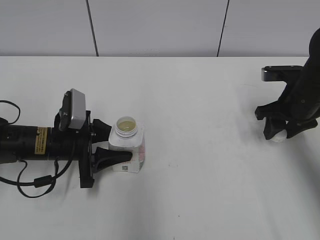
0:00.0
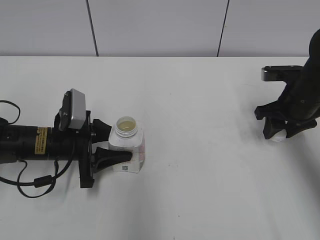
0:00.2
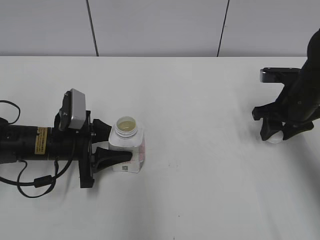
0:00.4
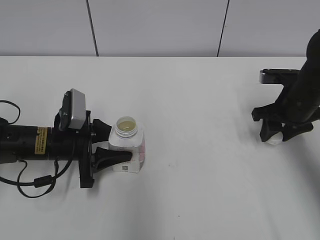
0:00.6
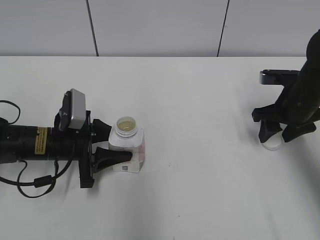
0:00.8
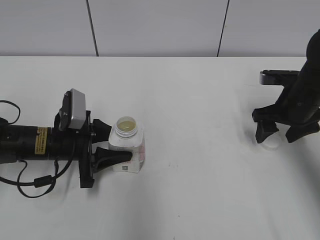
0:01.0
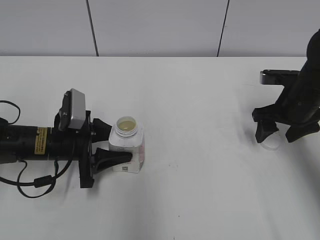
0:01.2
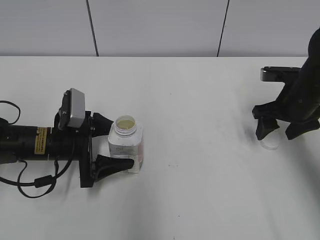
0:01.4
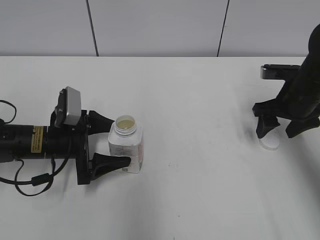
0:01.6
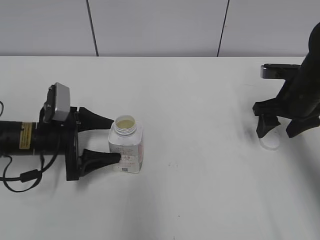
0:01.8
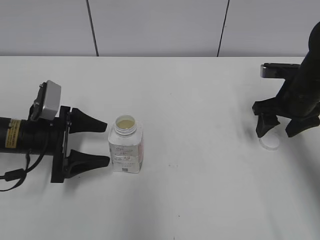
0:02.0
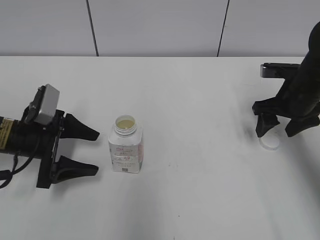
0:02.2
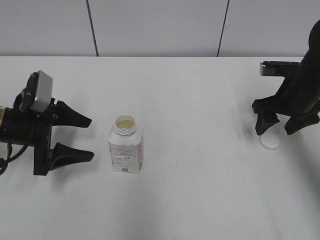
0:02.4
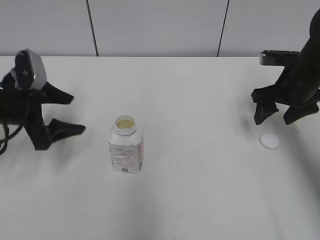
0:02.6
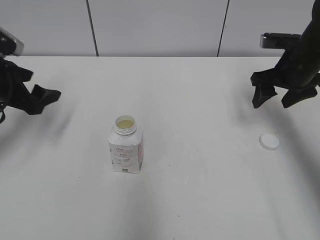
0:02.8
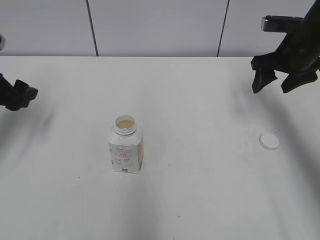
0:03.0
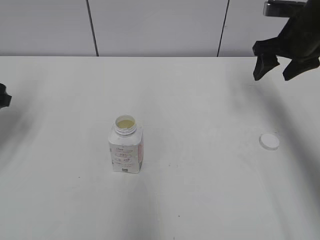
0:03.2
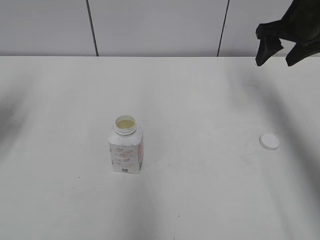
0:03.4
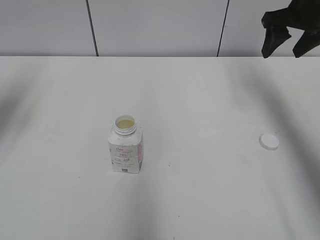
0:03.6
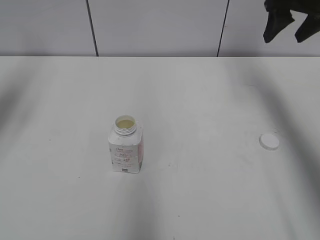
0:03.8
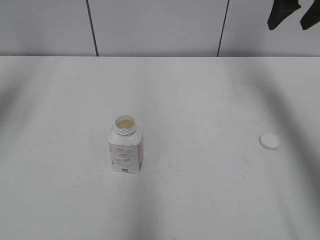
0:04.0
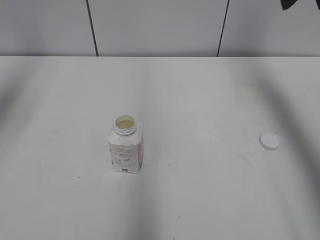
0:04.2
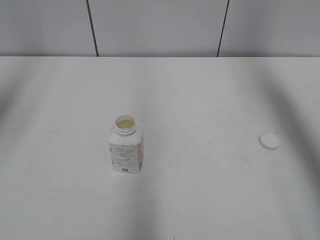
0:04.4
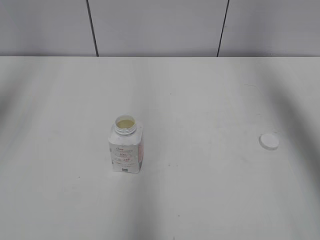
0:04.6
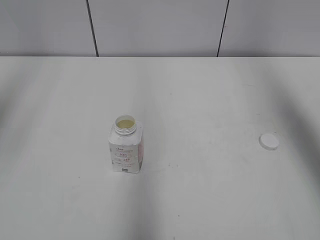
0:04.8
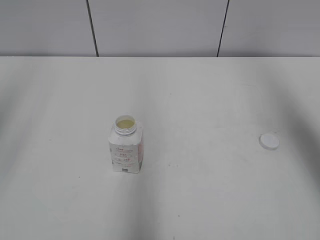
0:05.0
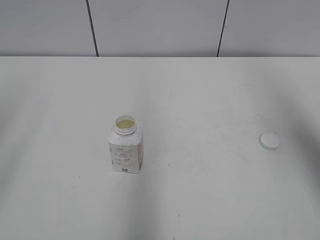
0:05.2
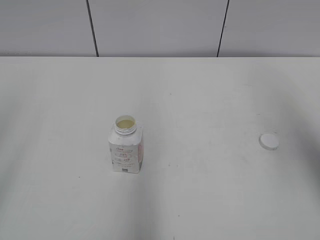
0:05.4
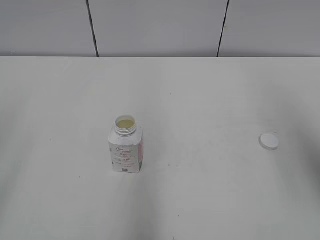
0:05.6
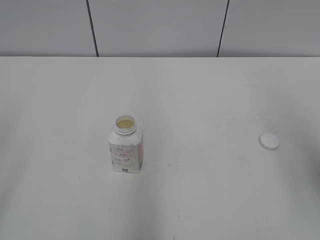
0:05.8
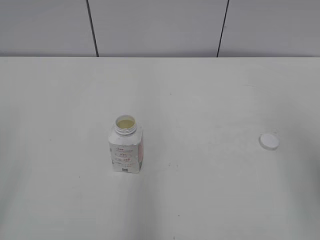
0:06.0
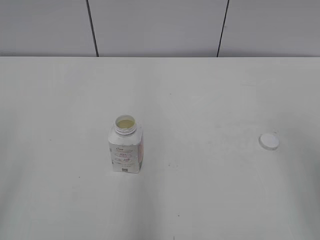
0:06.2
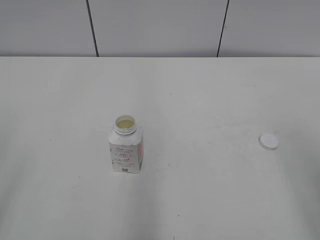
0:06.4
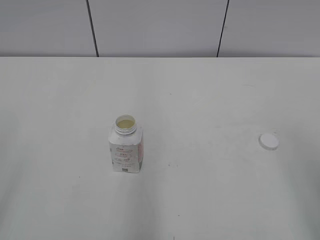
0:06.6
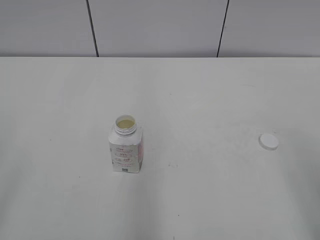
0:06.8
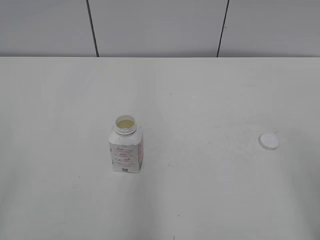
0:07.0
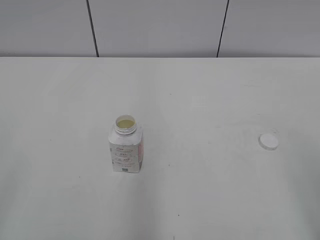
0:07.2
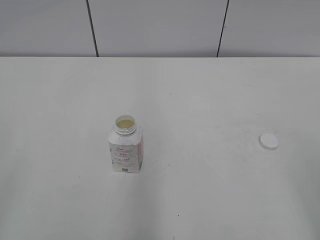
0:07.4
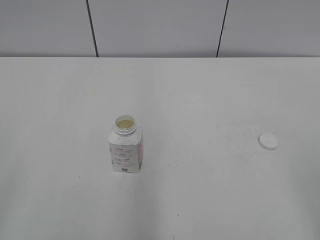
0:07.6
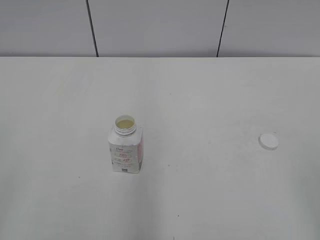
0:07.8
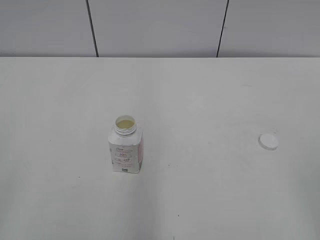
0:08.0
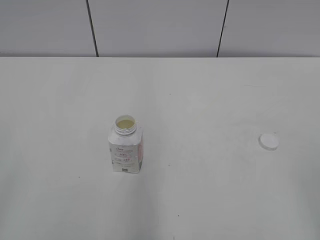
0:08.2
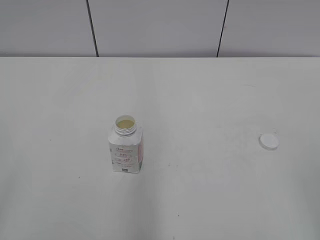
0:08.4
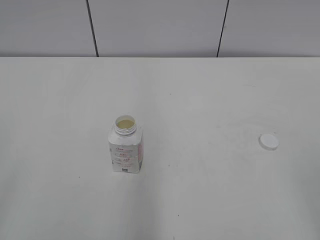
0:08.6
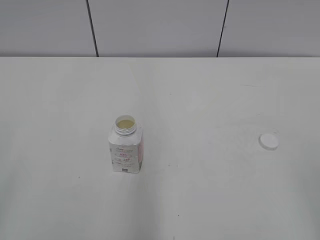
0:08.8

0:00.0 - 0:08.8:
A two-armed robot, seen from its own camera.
Step, 0:01.0 - 0:01.6: Place the bottle on the table with the left gripper.
0:00.0 - 0:01.4: The left gripper opens its fingers; the right gripper opens up.
0:01.4 - 0:03.0: The left gripper travels to the left and upward by approximately 15 cm. The right gripper goes roughly 5 cm upward.
0:03.0 - 0:04.4: The two grippers go approximately 20 cm upward.
0:04.4 - 0:05.8: Both grippers travel together backward, about 25 cm.

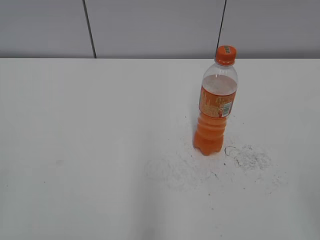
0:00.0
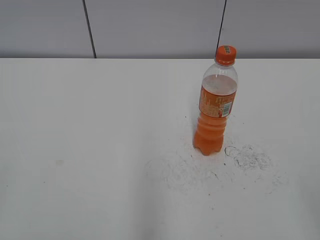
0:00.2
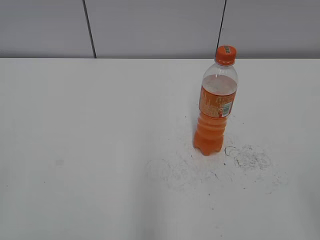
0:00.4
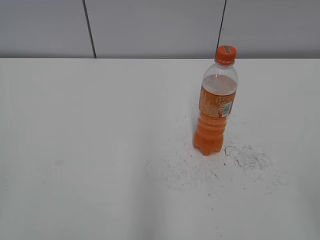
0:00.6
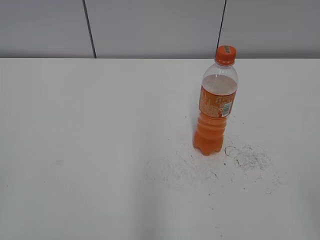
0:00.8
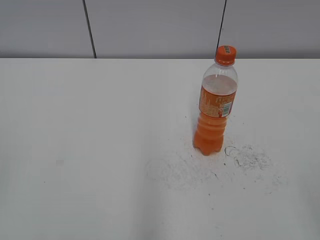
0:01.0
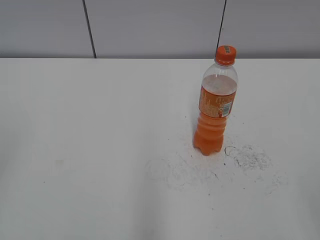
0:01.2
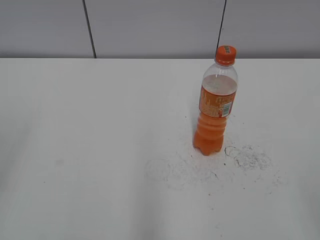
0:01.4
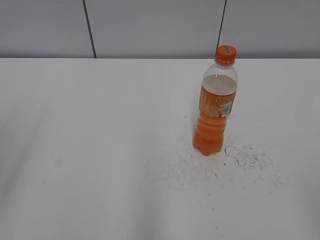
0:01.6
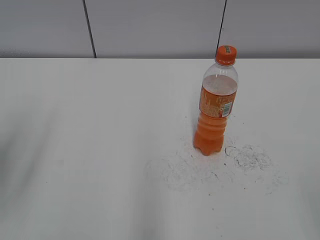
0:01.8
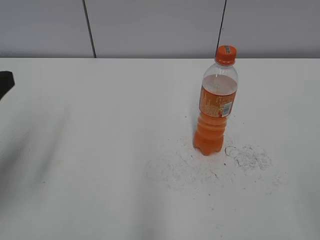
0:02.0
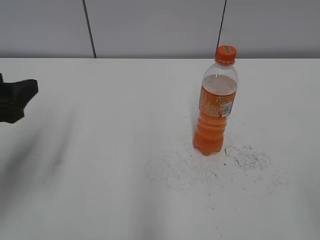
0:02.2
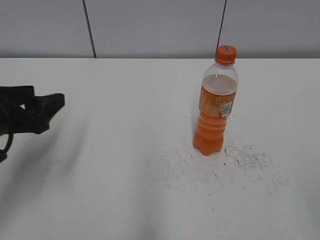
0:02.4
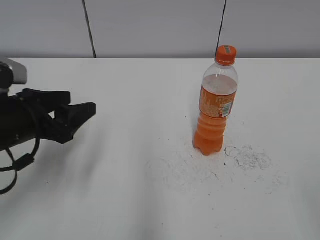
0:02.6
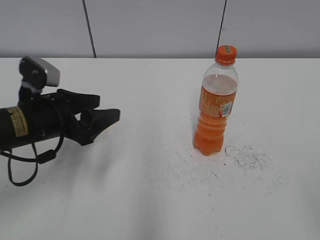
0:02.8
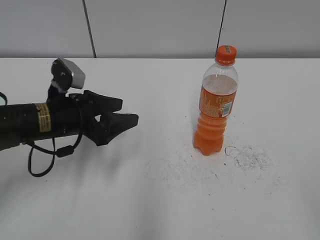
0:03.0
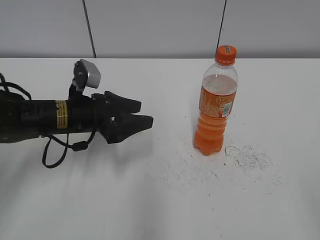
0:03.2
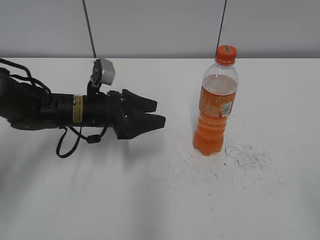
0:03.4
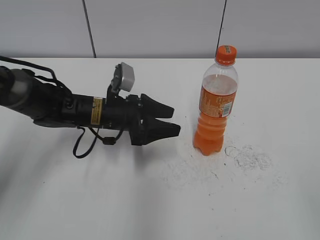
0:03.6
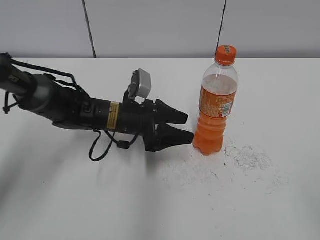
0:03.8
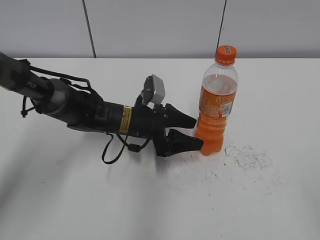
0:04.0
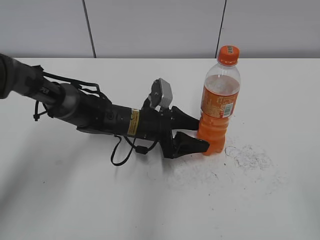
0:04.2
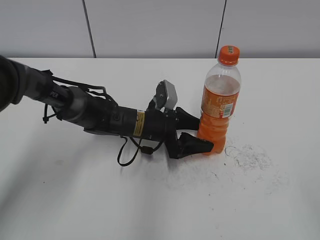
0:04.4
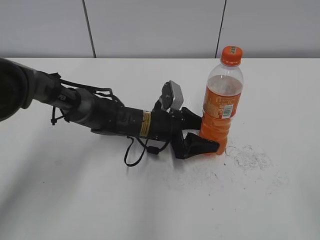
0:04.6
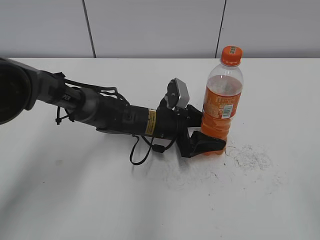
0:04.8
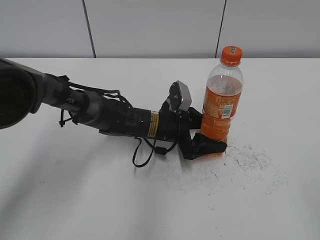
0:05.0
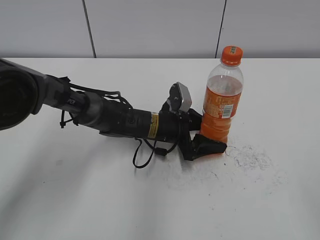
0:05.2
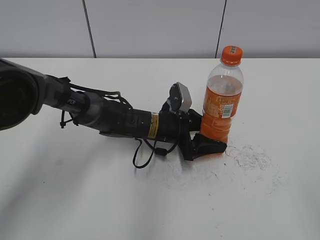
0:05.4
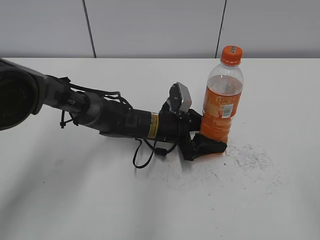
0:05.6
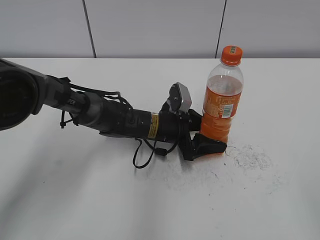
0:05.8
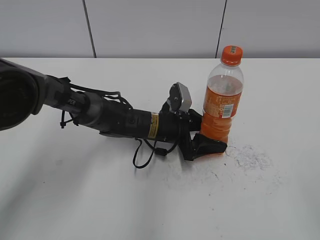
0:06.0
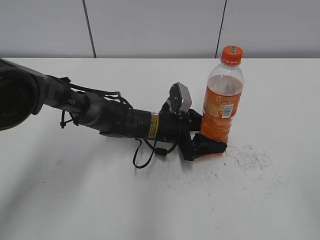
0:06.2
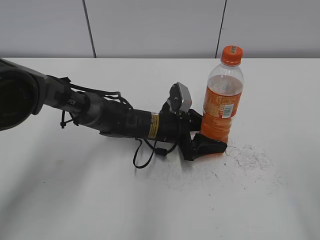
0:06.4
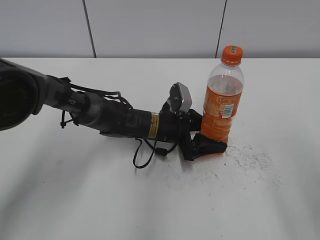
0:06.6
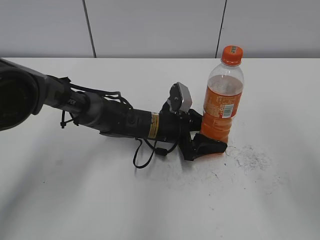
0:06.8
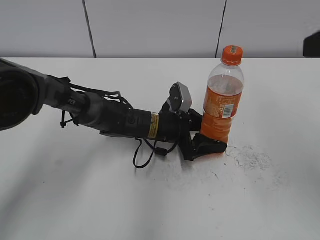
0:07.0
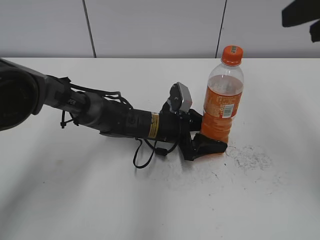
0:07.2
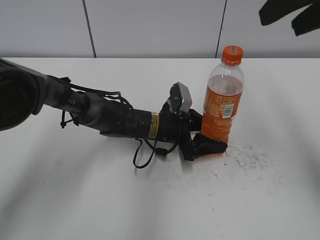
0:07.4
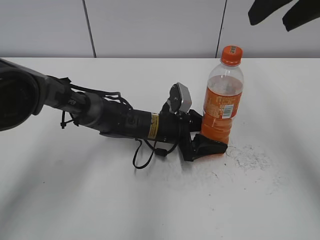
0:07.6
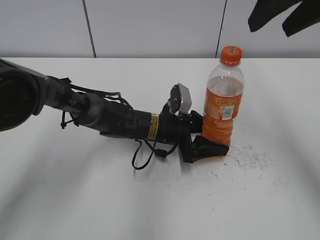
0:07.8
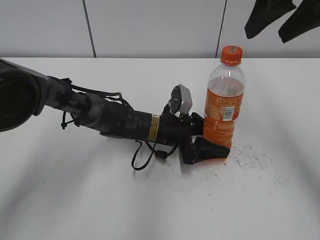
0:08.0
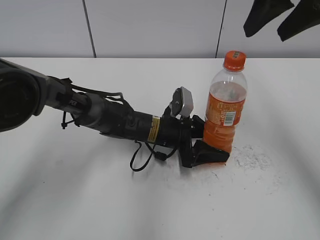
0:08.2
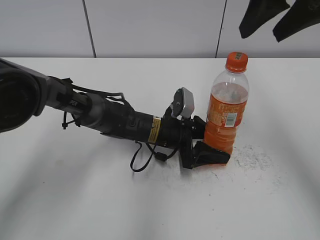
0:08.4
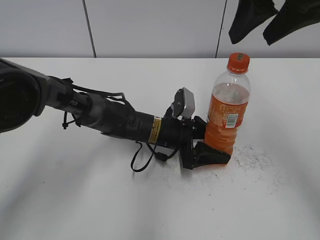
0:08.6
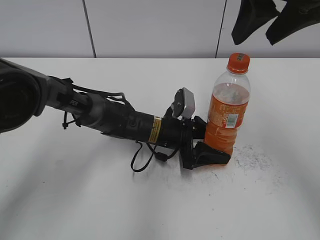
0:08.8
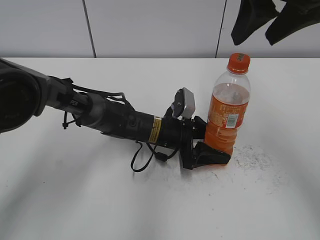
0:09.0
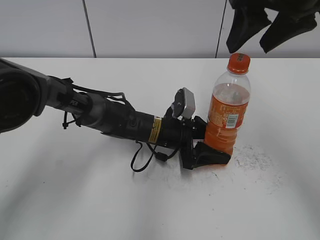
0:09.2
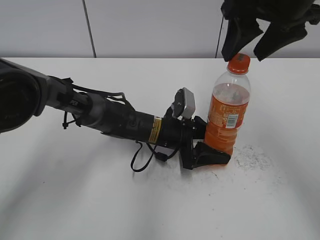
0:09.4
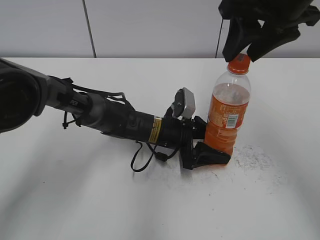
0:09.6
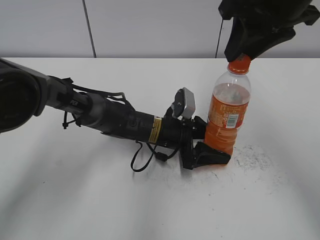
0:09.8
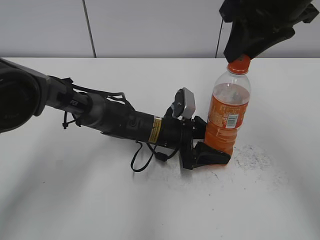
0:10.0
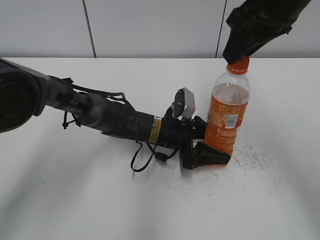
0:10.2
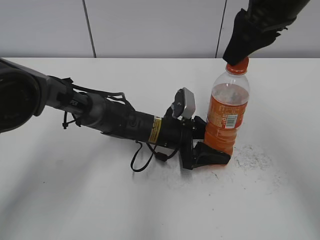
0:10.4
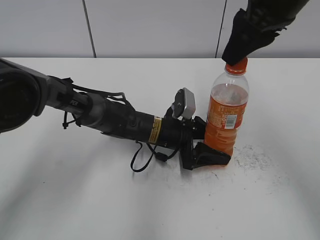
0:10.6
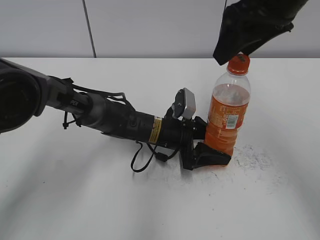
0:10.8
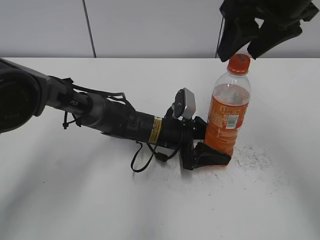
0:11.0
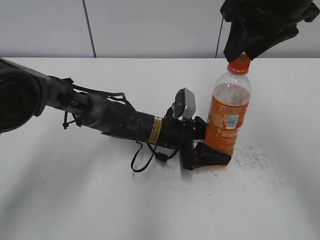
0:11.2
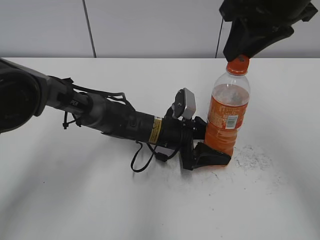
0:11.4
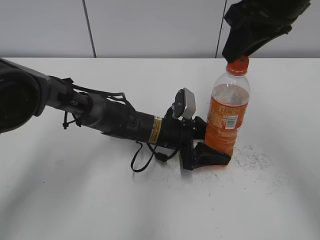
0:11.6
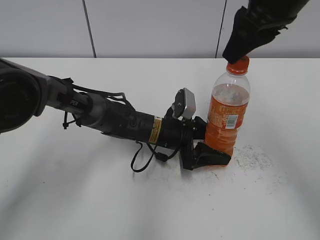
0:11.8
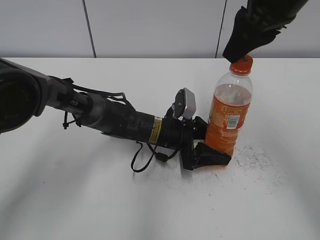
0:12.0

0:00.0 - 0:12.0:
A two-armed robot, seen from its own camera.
Step, 0:00.0 - 0:07.4: Grab the Mirinda with the left hand.
0:01.6 - 0:03.0: The left gripper moves forward, downward and to the right, roughly 25 cm.
0:03.0 - 0:04.4: The left gripper travels to the right, downward and forward by some 20 cm.
0:04.4 - 0:06.0: The grippers make only small movements.
0:06.0 - 0:07.6: The right gripper moves forward and upward, some 30 cm.
0:07.6 - 0:09.0: The grippers move only a little.
0:09.0 - 0:10.4: The right gripper closes up.
0:10.4 - 0:12.0: The right gripper opens and closes again.

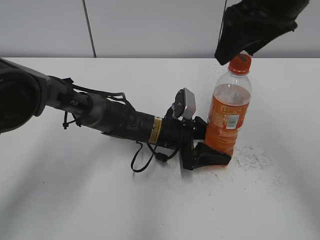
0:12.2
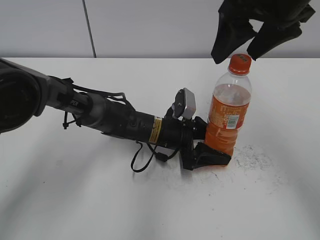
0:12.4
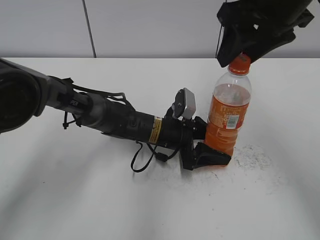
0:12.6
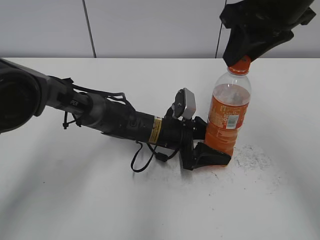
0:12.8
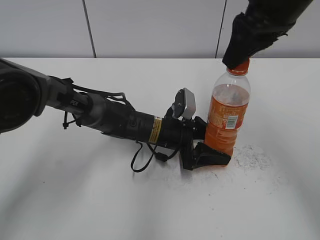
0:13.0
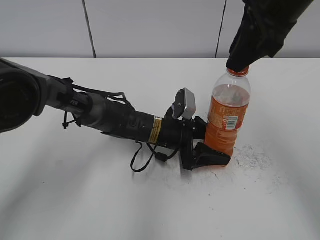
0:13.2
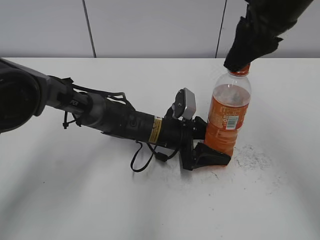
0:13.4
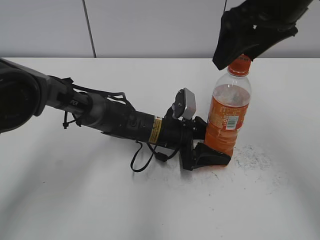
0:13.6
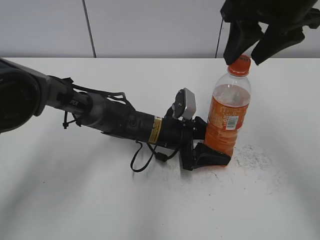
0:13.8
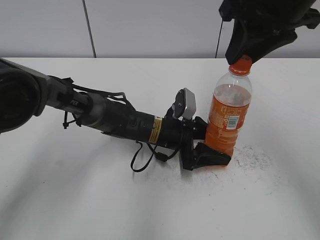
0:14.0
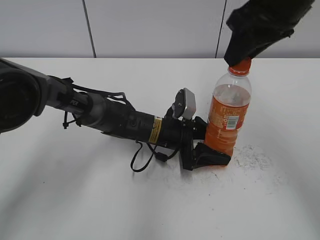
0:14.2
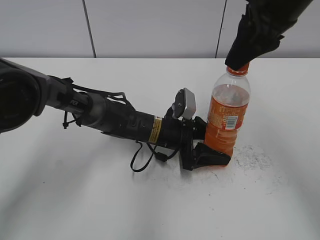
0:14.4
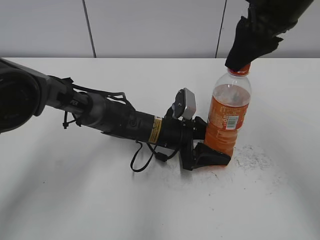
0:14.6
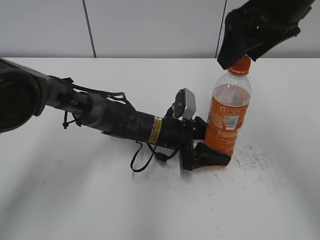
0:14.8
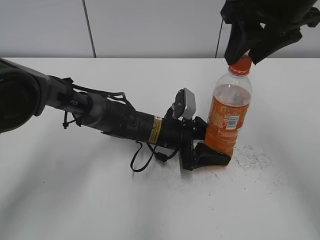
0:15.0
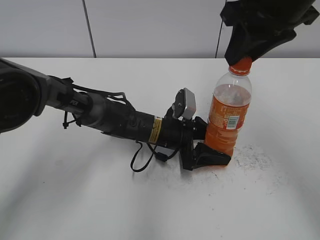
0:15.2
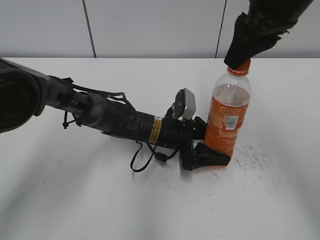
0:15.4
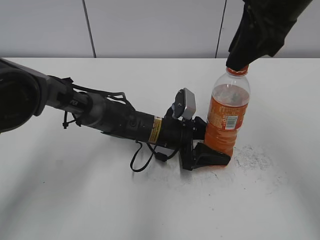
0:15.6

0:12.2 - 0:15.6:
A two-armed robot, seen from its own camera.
0:12.2 - 0:13.8: The right gripper closes and opens again.
0:13.8 - 0:15.6: The right gripper closes up.
